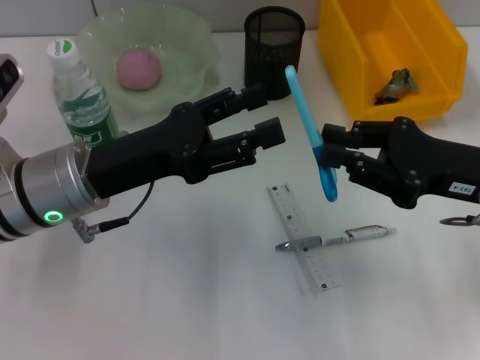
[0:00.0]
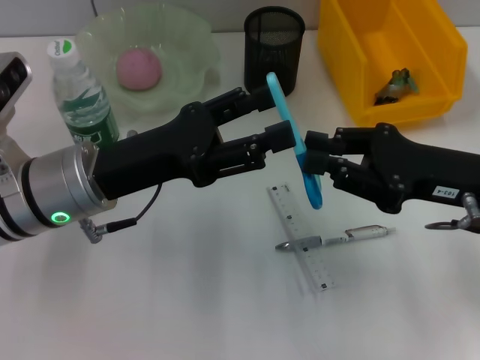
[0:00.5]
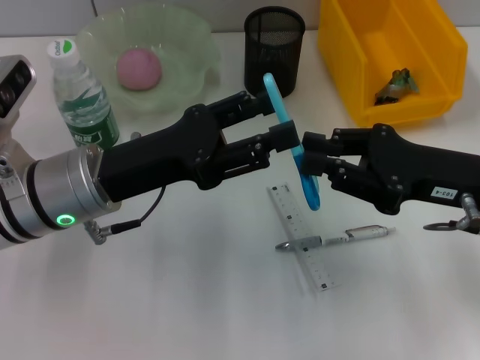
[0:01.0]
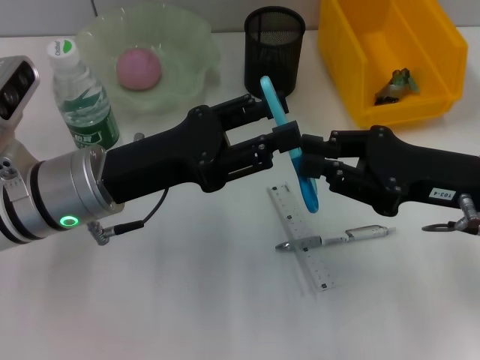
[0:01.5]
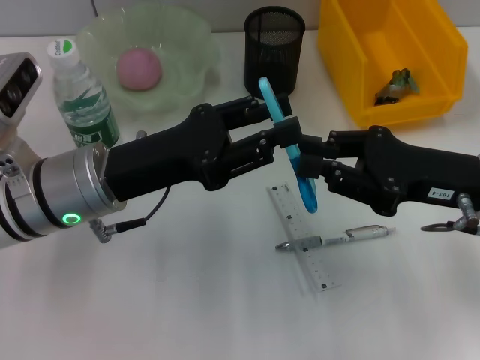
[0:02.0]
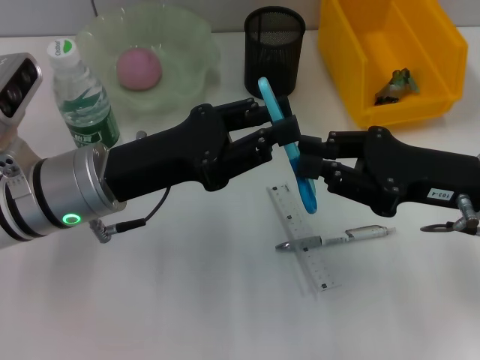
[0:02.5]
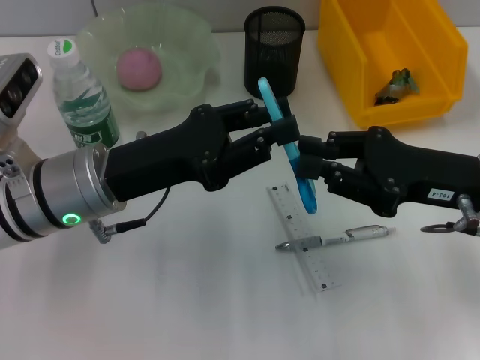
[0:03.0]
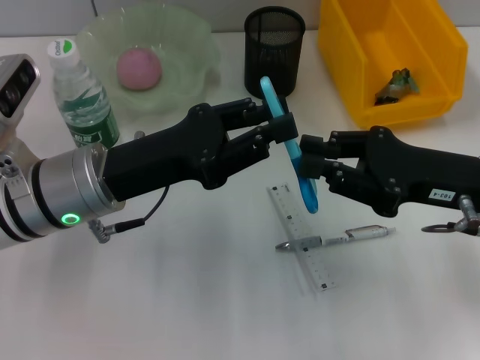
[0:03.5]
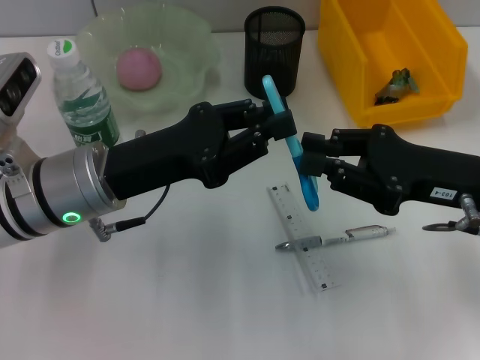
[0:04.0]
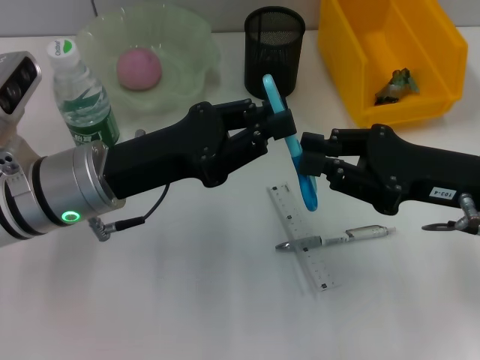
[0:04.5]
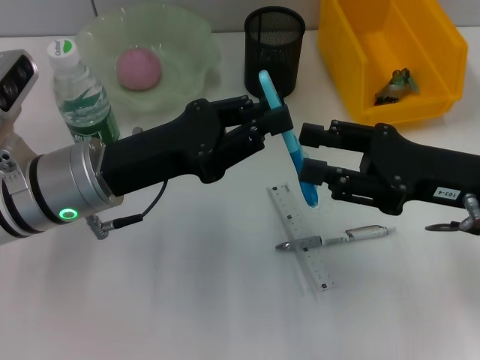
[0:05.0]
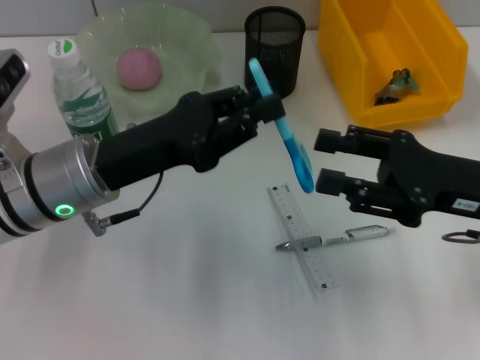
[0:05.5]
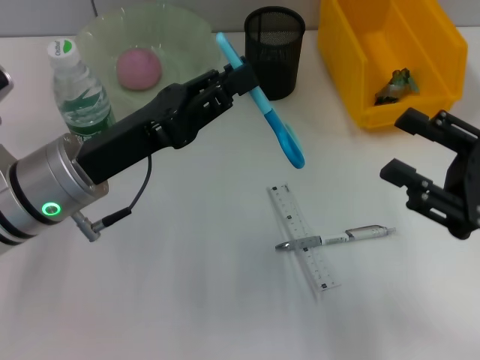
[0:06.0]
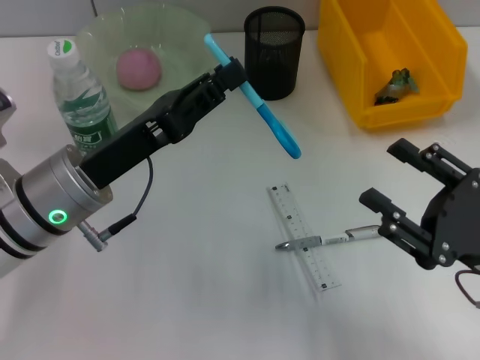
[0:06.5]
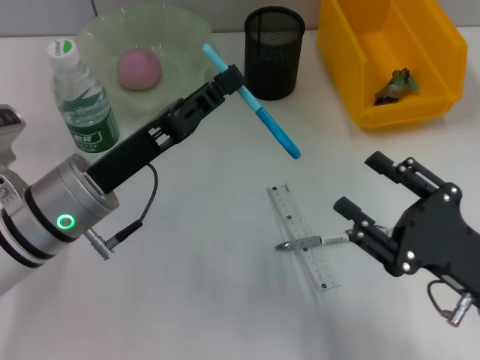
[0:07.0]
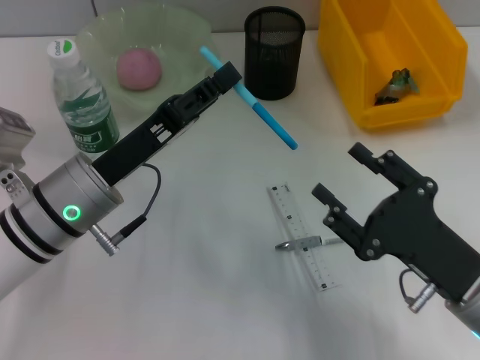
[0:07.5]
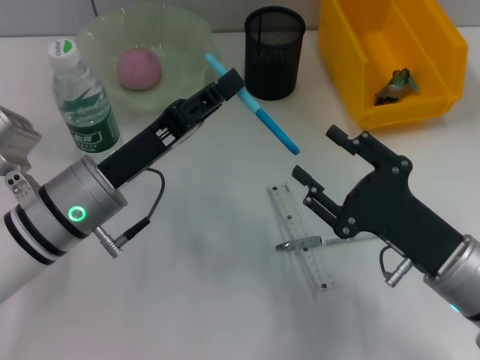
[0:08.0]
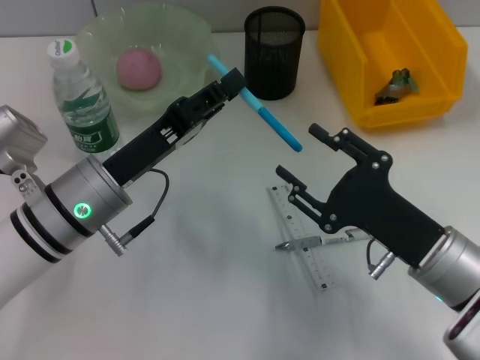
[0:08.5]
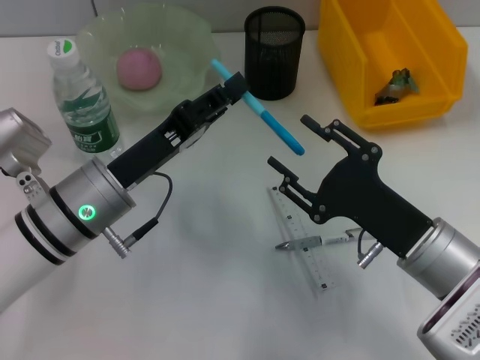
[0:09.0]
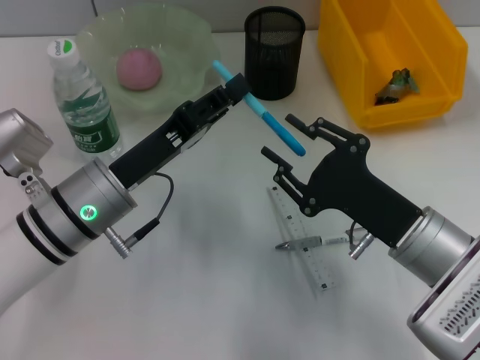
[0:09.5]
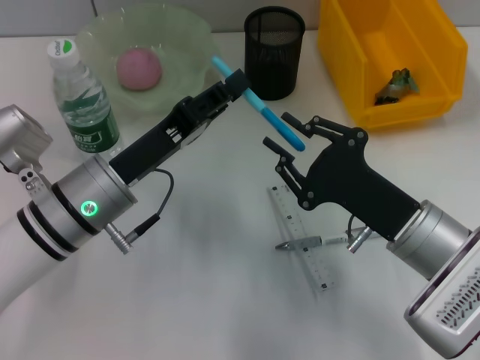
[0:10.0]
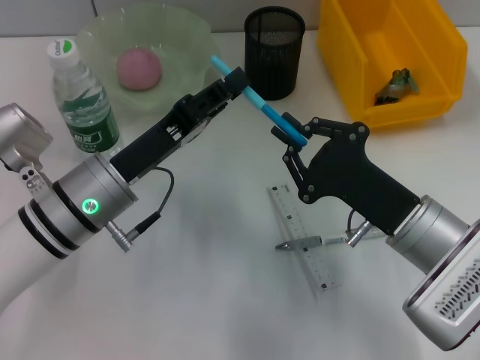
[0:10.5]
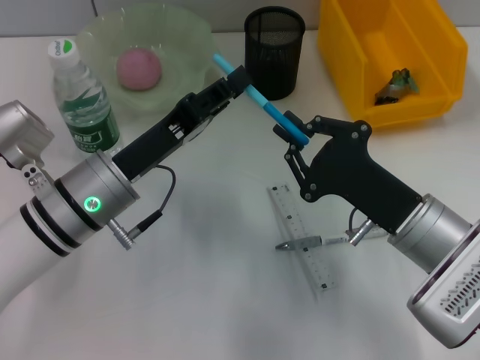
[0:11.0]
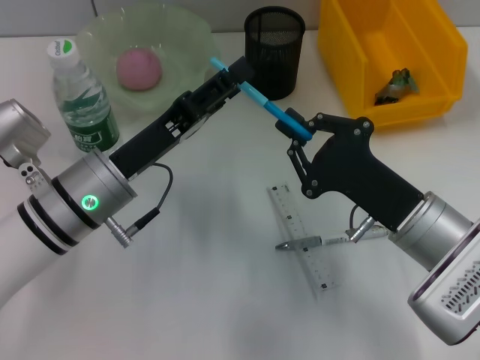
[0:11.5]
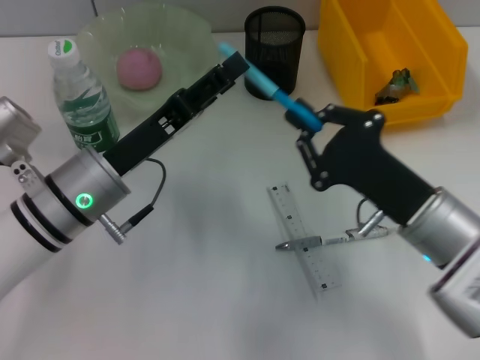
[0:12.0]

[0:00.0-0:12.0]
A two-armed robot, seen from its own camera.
Step, 0:00.0 to 0:05.0: Pass the blue scissors from the right hand to the left hand.
Step, 0:05.5 to 0:12.0: Pass the blue scissors from the left hand to the right hand.
0:00.0 to 0:02.0: The left gripper closes.
0:02.0 to 0:04.0: The two grippers keep their place.
0:04.0 to 0:06.0: The right gripper heads backward, covering approximately 5 cm, and opens up.
0:06.0 to 0:08.0: The right gripper heads to the left and downward, covering approximately 10 cm.
0:08.0 to 0:10.0: The grippers make only small movements.
0:10.0 to 0:12.0: The left gripper opens.

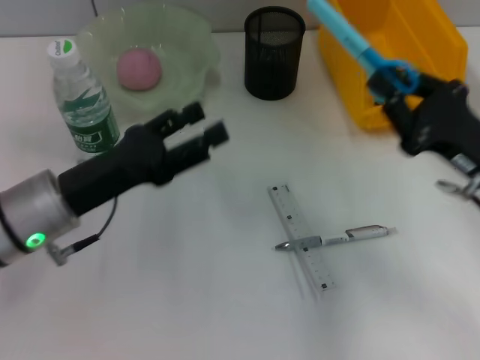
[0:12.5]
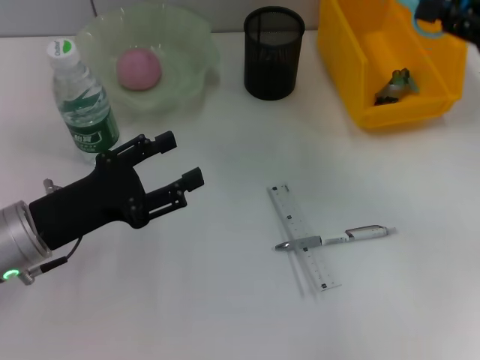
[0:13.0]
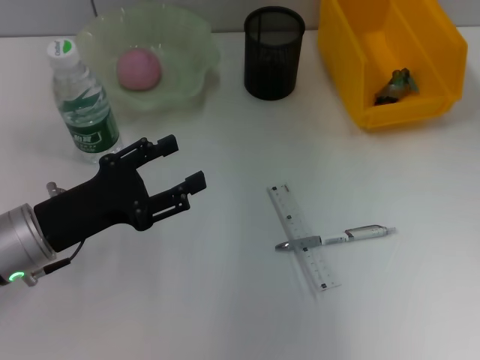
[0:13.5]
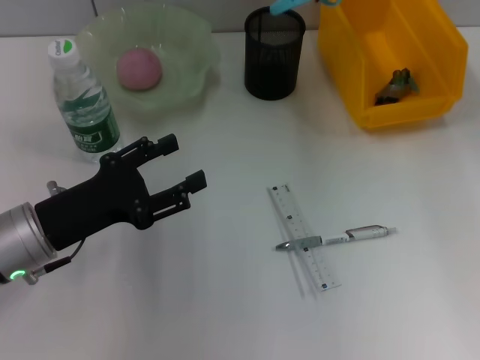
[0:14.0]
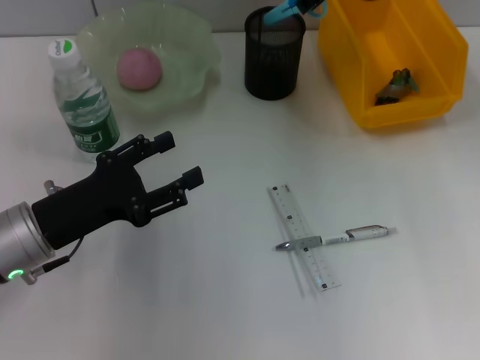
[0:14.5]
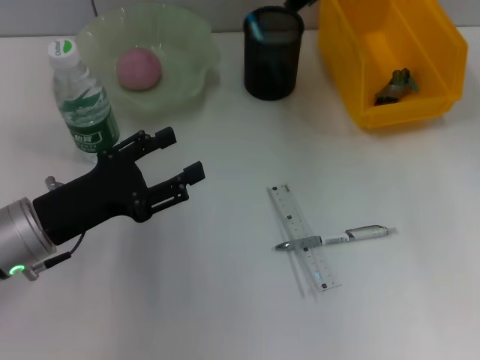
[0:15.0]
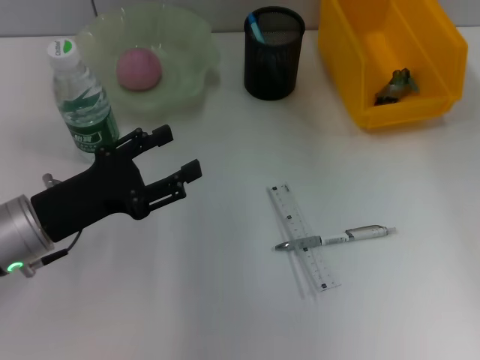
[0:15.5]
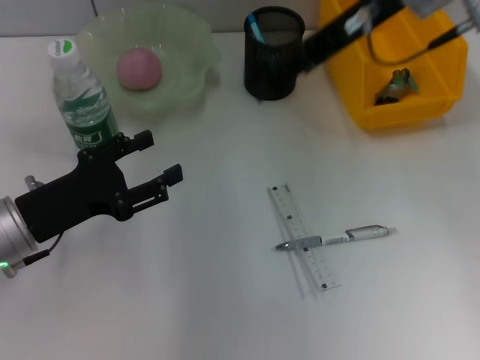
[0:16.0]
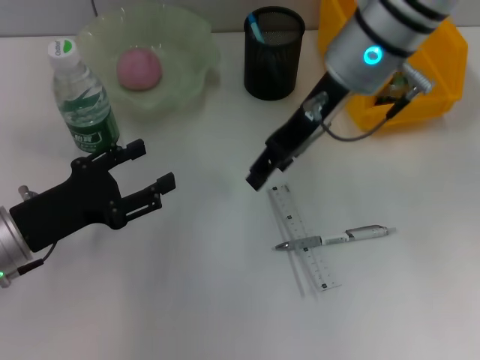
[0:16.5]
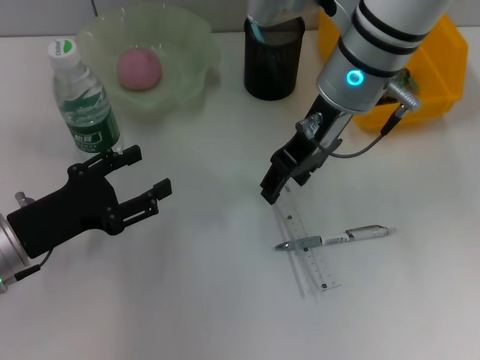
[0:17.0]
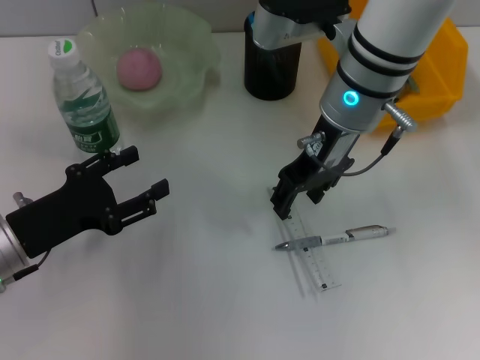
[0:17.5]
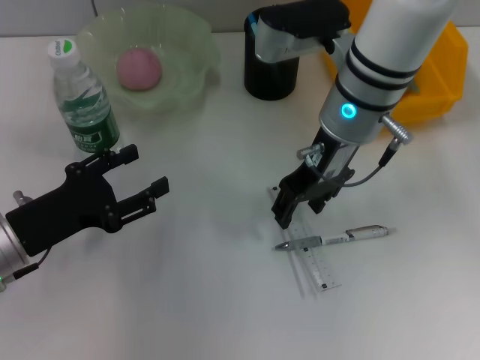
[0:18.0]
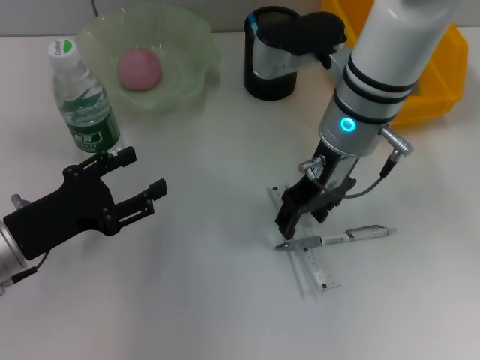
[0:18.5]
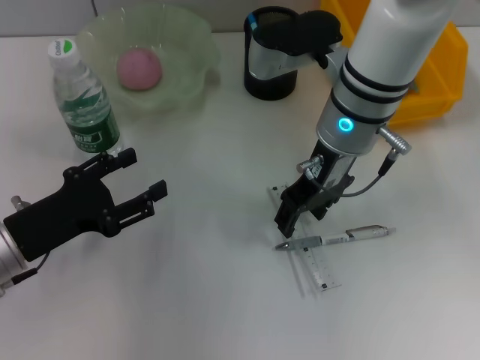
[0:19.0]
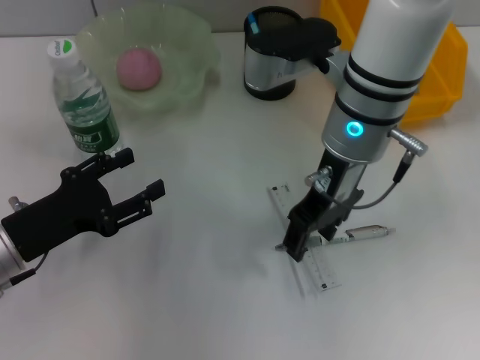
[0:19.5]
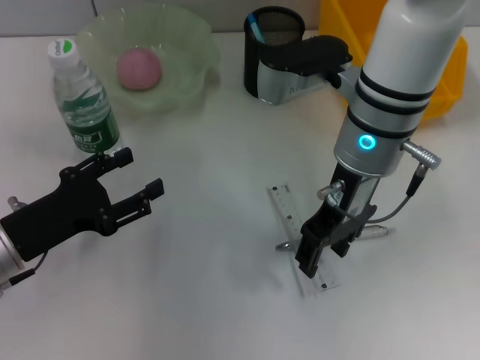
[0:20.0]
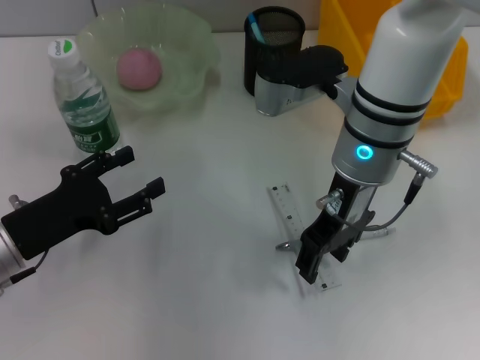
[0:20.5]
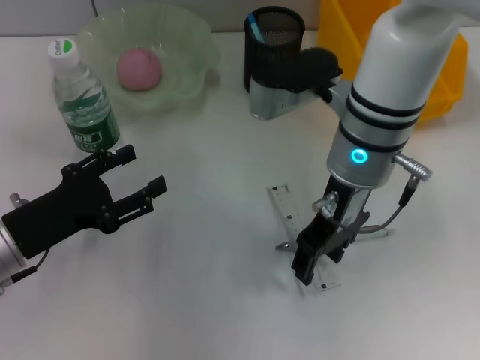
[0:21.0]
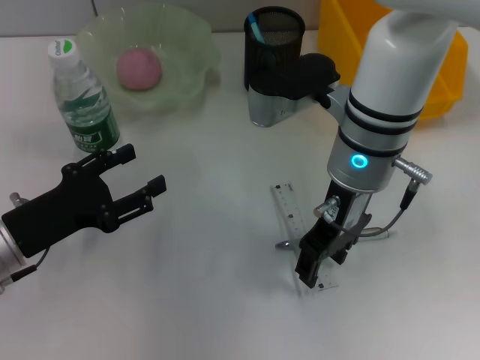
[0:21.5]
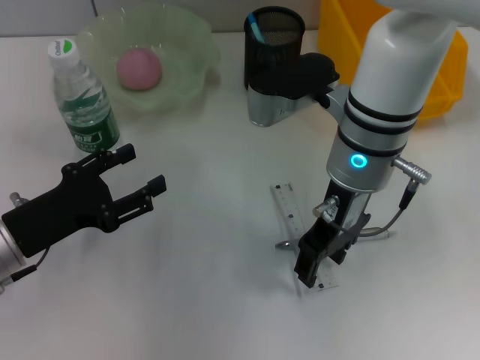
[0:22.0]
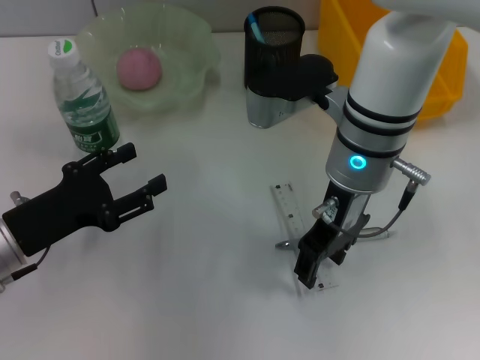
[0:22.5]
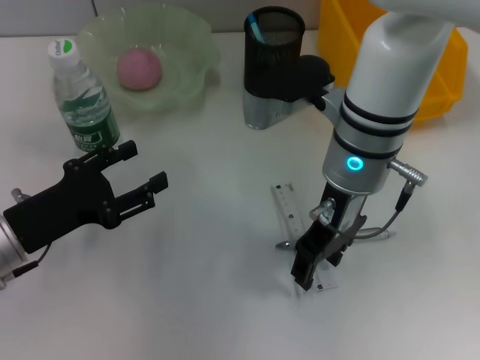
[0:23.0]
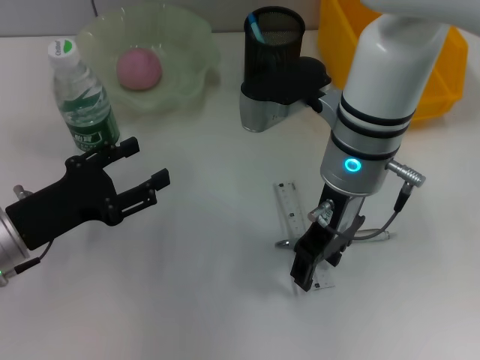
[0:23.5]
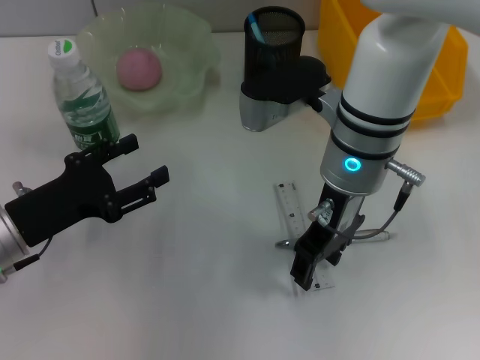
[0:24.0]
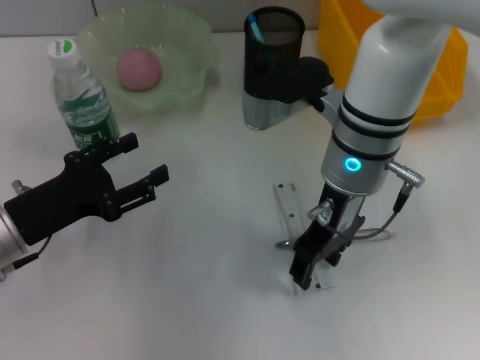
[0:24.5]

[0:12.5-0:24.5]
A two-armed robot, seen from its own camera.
Step, 0:12.5 to 0:15.0: Place the blue scissors into the pen holder with the right hand.
0:12.5 to 0:14.5: The right gripper moves forward, upward and to the left, roughly 30 cm.
0:14.5 to 0:16.5: The right gripper is displaced backward by approximately 10 cm, and opens.
0:16.5 to 0:18.5: The right gripper travels downward by approximately 5 cm.
0:18.5 to 0:20.5: There are only small adjustments of the grippers.
0:20.5 to 0:24.5: The two grippers keep their place.

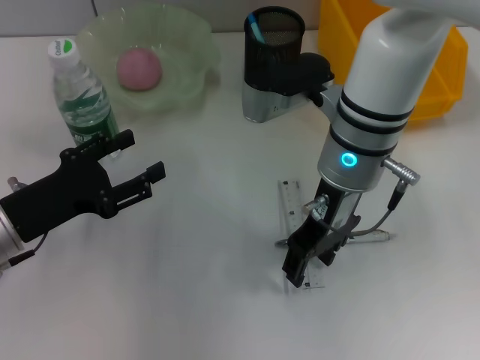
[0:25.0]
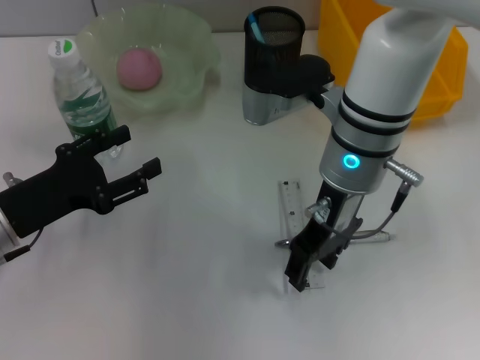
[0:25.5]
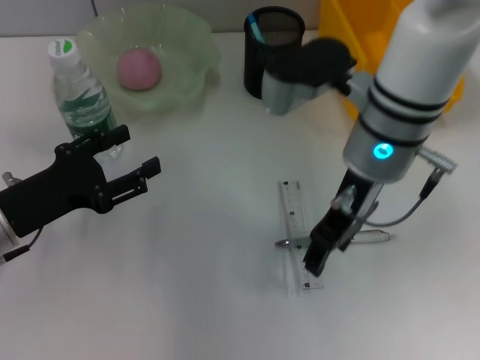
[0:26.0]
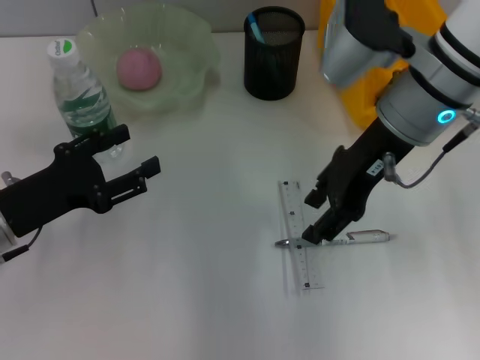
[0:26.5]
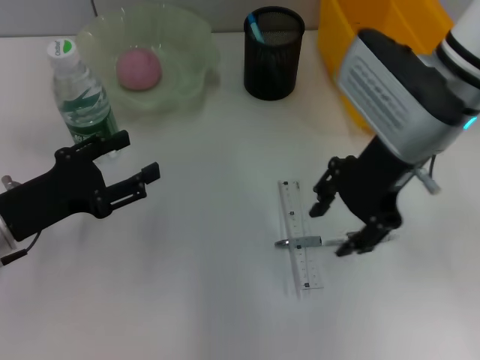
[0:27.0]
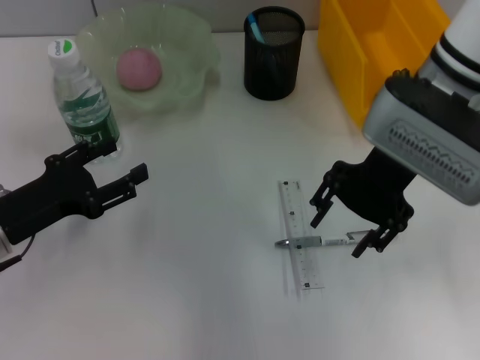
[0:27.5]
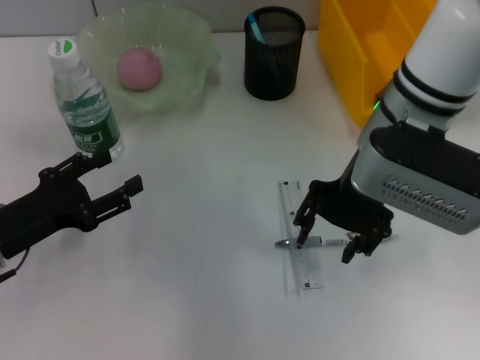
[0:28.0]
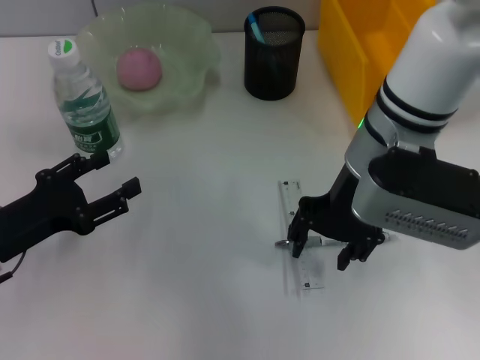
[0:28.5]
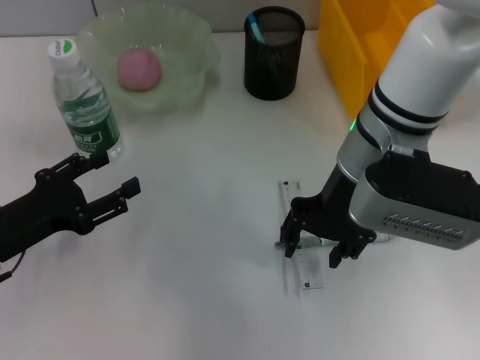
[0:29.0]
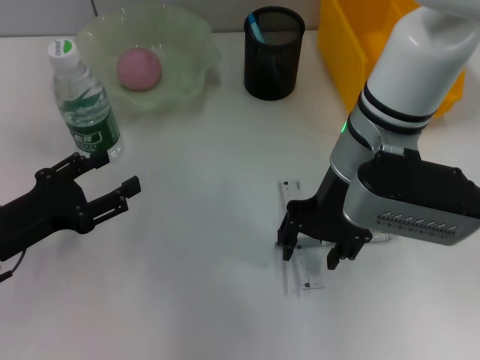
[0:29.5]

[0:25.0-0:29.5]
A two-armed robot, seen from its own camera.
0:25.0 to 0:27.0: The right gripper shifts roughly 5 cm to the right.
0:27.0 to 0:29.5: The right gripper goes about 5 cm to the left.
